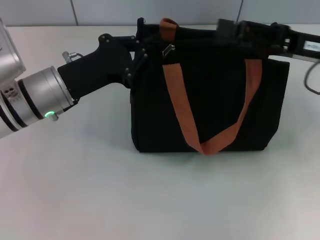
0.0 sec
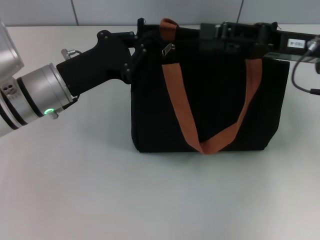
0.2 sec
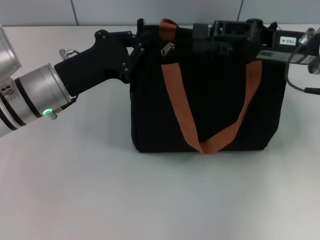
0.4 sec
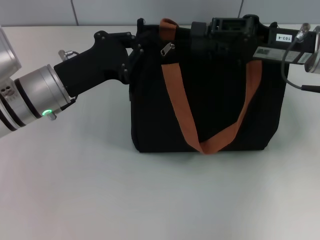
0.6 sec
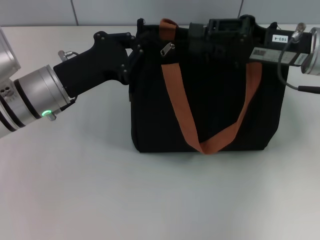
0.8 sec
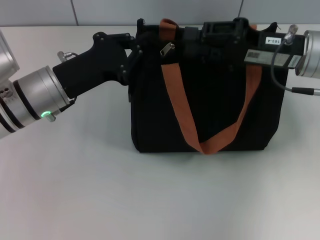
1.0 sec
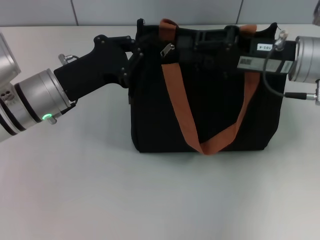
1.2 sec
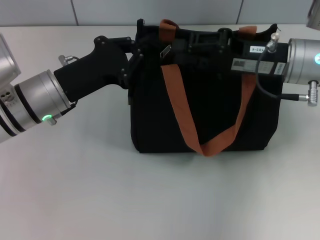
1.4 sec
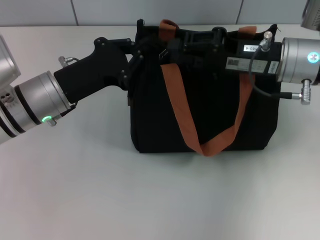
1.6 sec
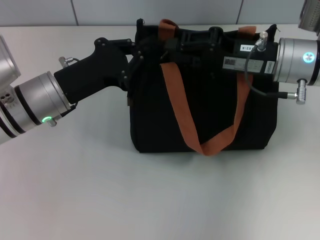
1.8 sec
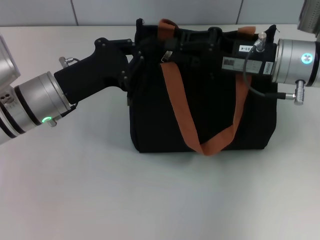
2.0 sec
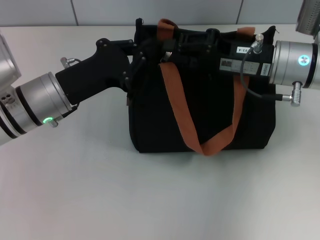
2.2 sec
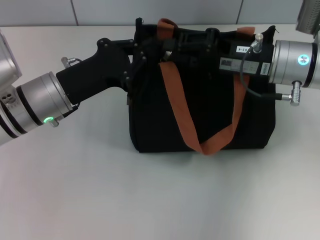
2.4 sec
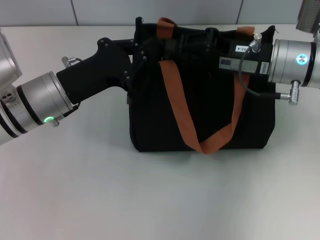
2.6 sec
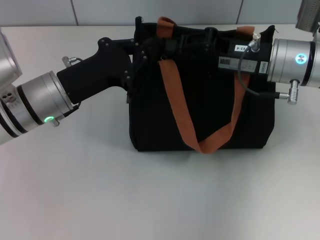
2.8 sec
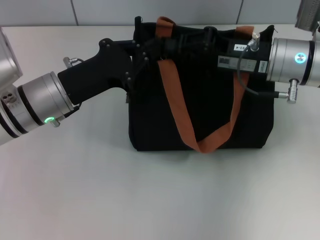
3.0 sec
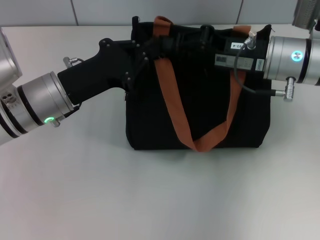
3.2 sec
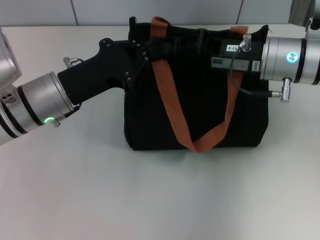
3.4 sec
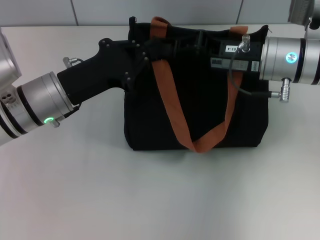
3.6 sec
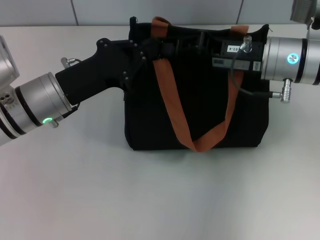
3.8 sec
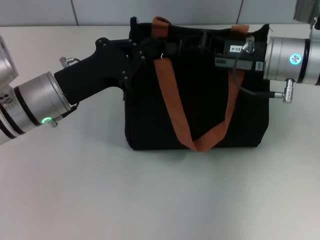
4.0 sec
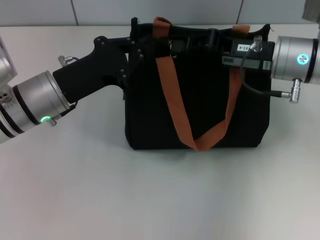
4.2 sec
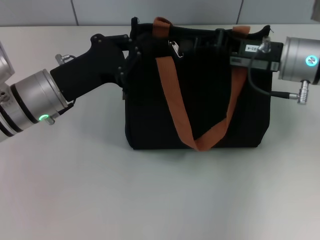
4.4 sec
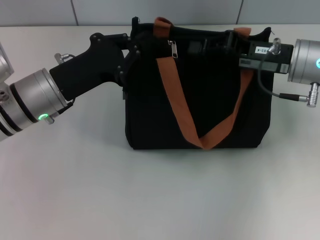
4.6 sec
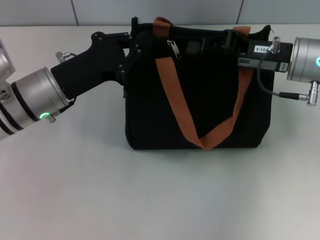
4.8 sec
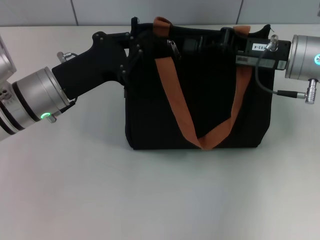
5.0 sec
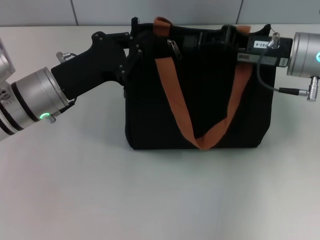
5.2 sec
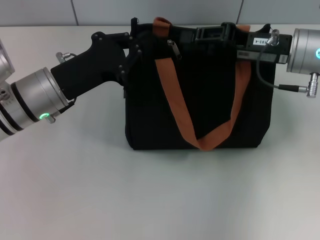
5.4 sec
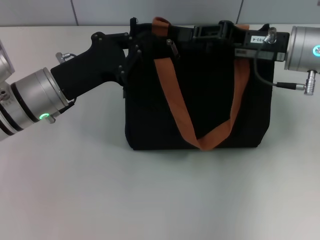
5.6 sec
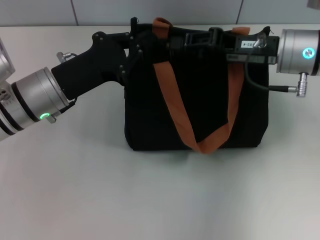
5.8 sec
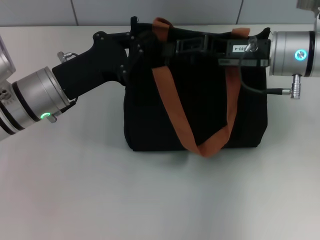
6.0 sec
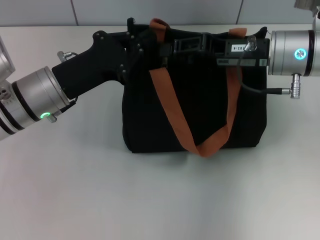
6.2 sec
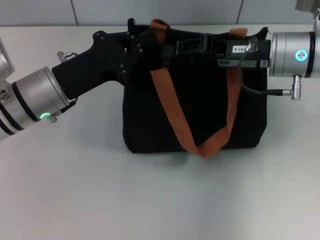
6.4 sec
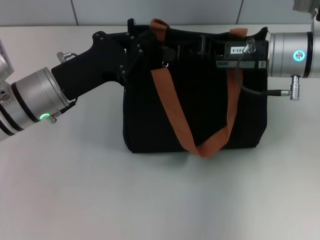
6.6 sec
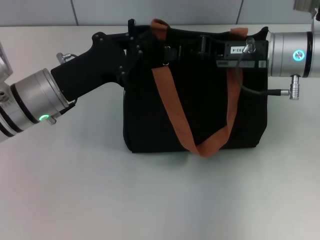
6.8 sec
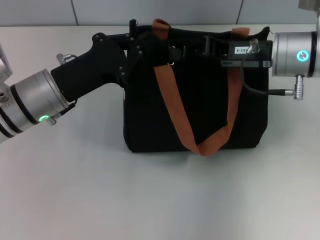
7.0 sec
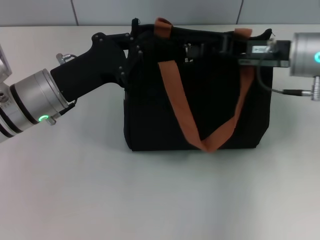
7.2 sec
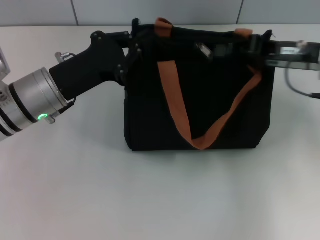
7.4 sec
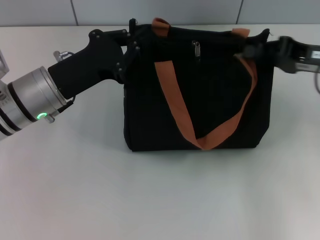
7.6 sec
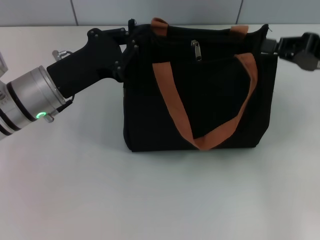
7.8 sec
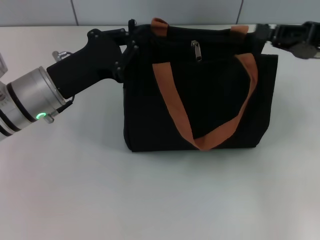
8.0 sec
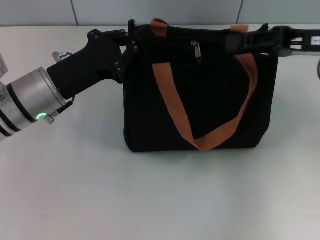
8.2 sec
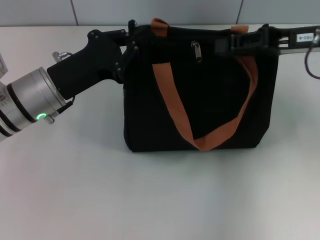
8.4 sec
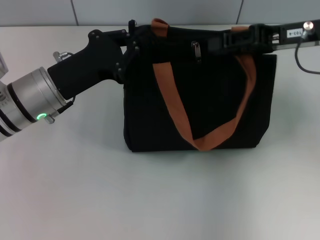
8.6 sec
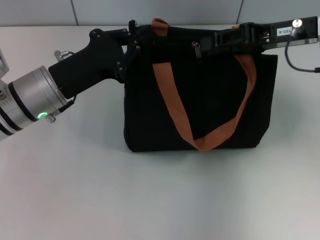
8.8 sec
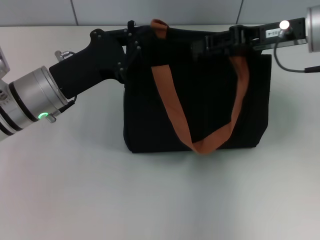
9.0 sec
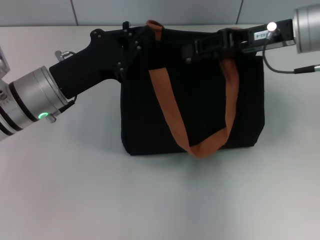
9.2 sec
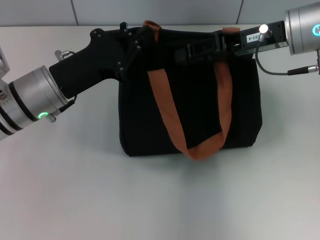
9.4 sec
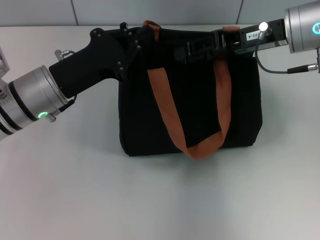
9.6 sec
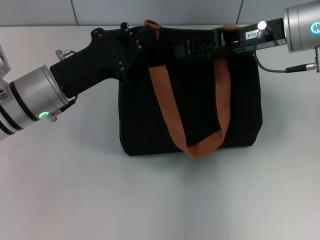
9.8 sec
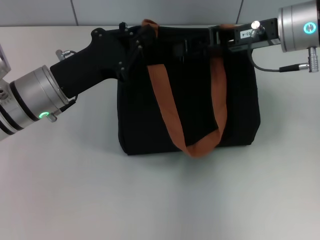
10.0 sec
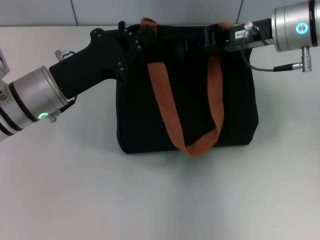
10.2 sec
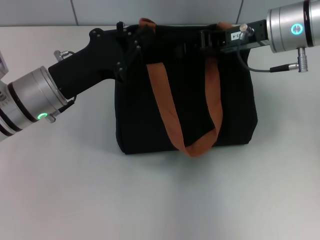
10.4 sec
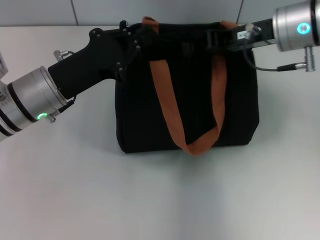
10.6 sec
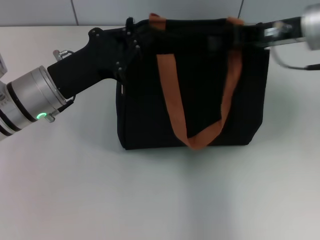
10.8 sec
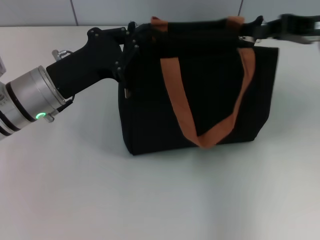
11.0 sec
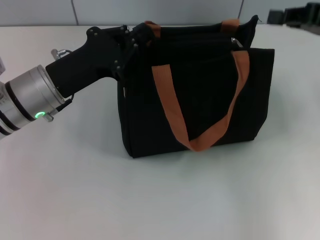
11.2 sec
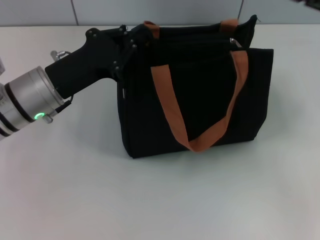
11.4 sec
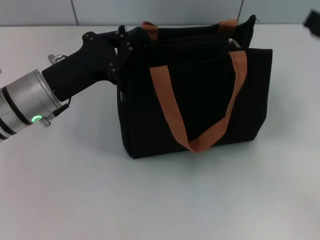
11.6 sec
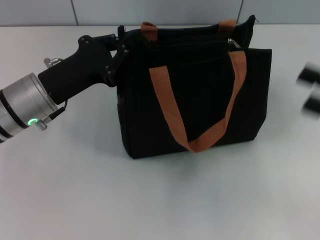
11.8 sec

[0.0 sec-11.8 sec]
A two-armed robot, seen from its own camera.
Step, 0.0 sec to 11.0 sec: Pull up the zipper with your right hand.
0.0 sec to 1.4 sec: The right gripper ends up some 5 cm from where it was, and closes its fingers.
1.4 sec to 4.4 sec: The grippers make only small movements.
4.4 sec to 6.0 sec: The right gripper opens up.
6.0 sec to 7.4 sec: The right gripper shifts some 5 cm to the right, and closes.
7.4 sec to 8.8 sec: The right gripper changes place by about 5 cm, and opens up.
8.8 sec to 10.4 sec: The right gripper moves to the left, approximately 5 cm, and closes up.
10.4 sec to 11.8 sec: The right gripper moves backward and to the right, approximately 20 cm.

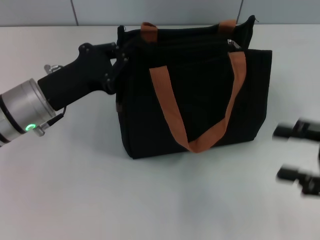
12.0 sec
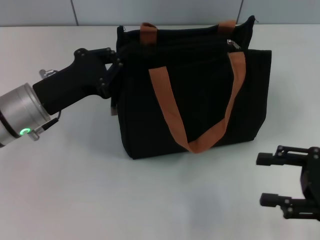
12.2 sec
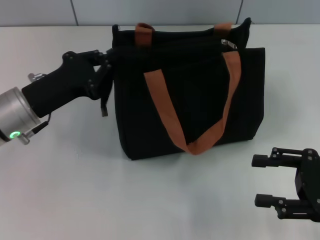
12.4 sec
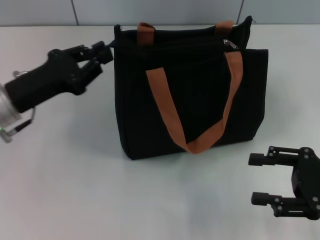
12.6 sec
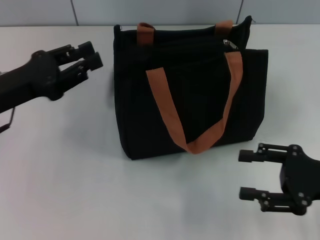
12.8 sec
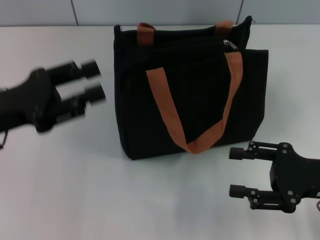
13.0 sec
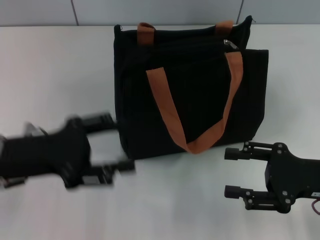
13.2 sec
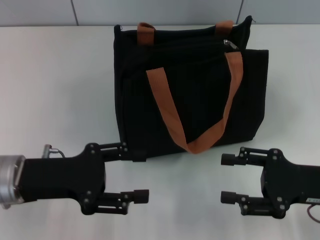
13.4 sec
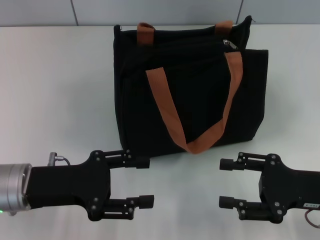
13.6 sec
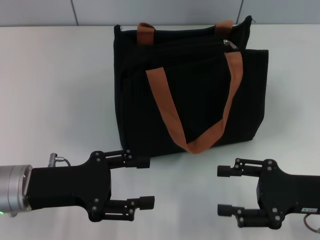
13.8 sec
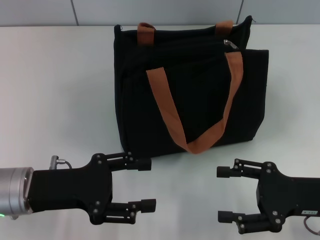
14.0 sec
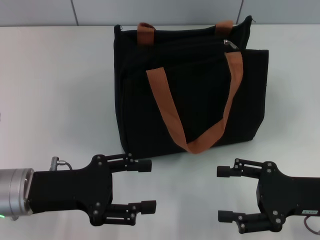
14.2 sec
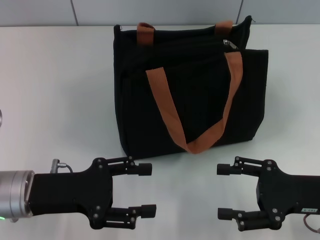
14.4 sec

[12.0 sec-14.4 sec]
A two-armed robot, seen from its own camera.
12.0 sec to 13.2 sec: The left gripper travels backward by approximately 5 cm, and opens up, while the right gripper shifts by some 5 cm.
13.2 sec to 14.4 sec: The left gripper opens.

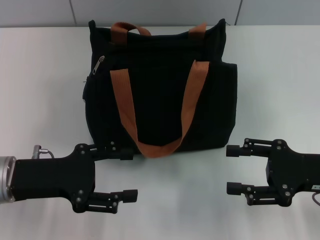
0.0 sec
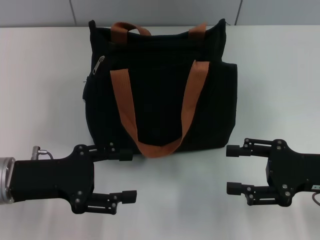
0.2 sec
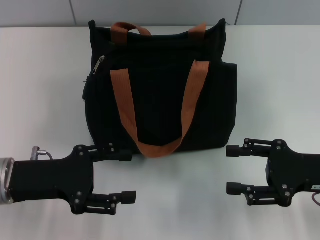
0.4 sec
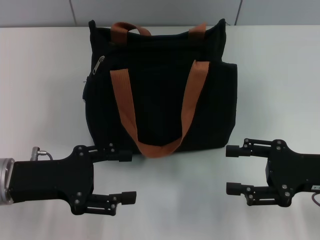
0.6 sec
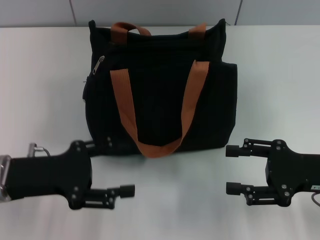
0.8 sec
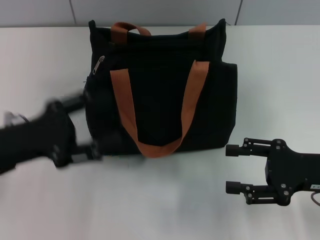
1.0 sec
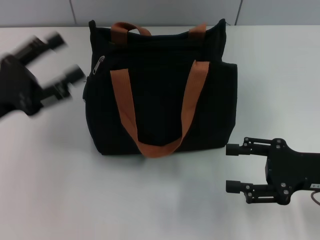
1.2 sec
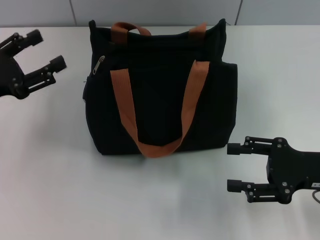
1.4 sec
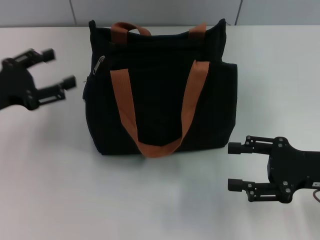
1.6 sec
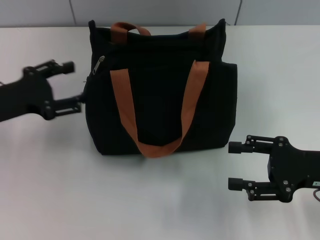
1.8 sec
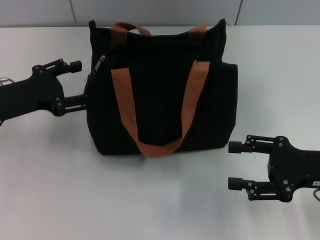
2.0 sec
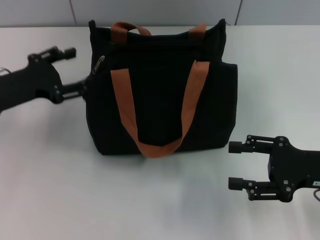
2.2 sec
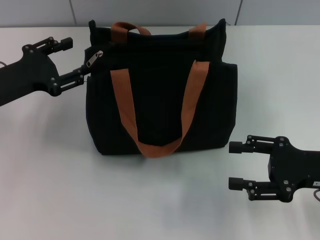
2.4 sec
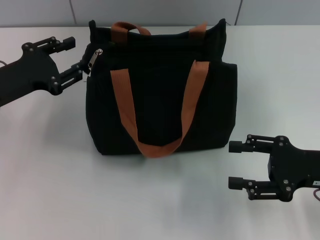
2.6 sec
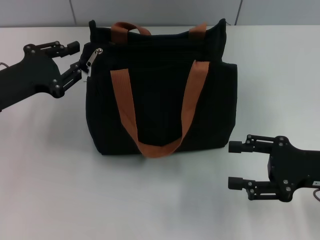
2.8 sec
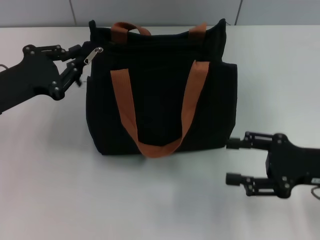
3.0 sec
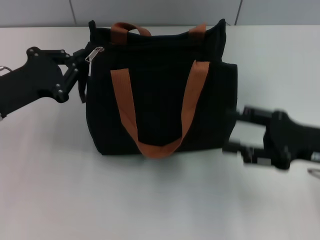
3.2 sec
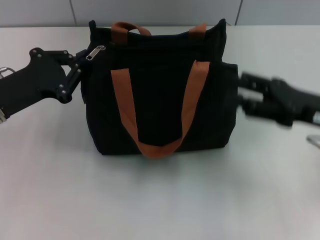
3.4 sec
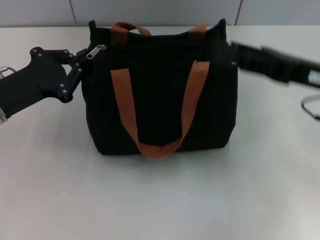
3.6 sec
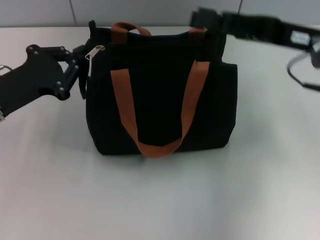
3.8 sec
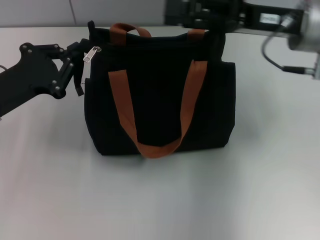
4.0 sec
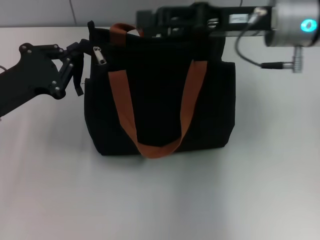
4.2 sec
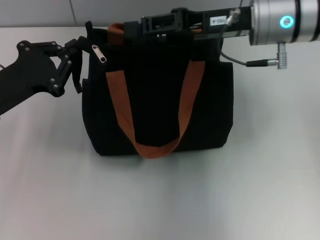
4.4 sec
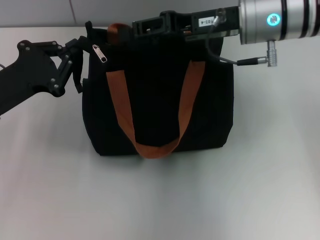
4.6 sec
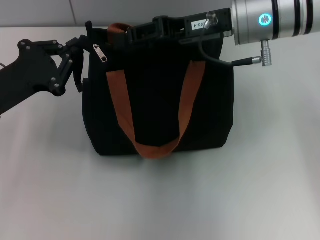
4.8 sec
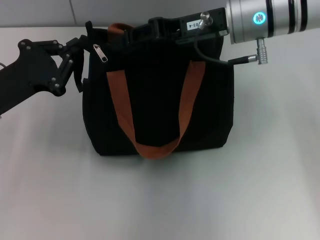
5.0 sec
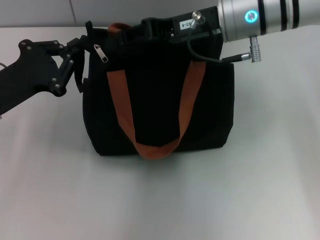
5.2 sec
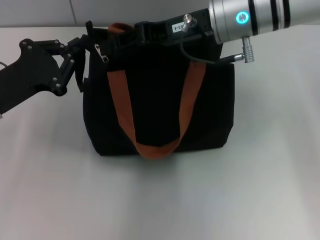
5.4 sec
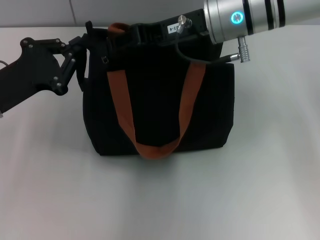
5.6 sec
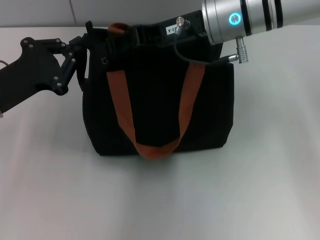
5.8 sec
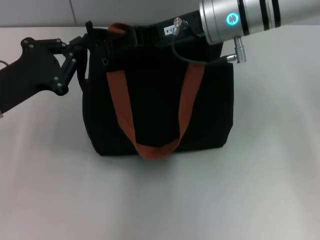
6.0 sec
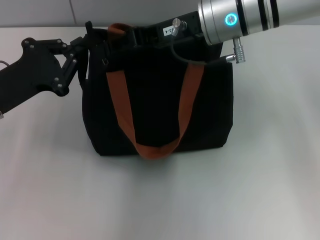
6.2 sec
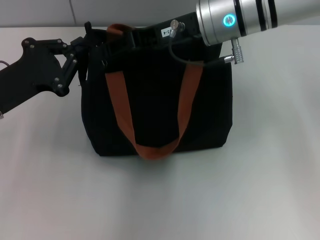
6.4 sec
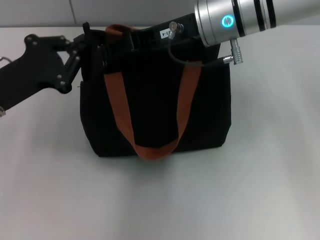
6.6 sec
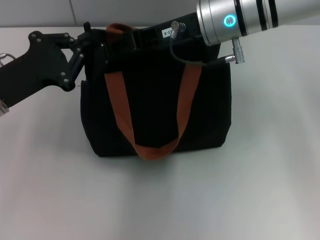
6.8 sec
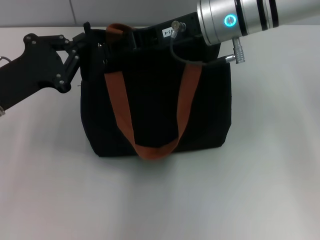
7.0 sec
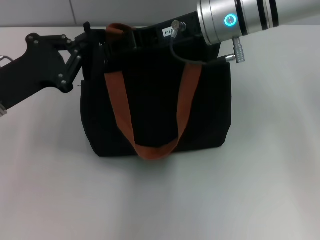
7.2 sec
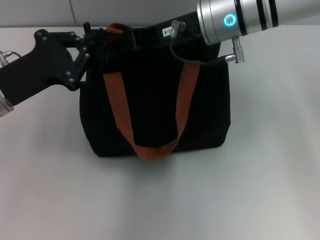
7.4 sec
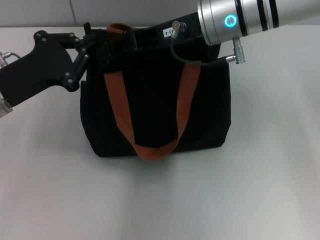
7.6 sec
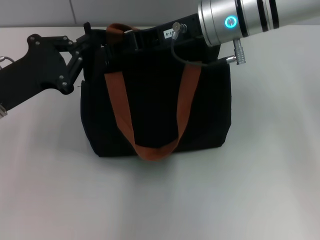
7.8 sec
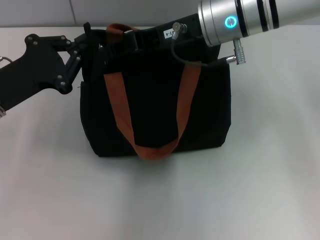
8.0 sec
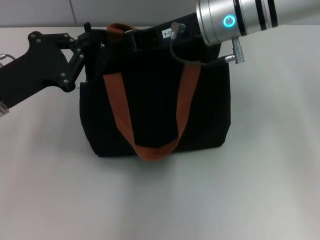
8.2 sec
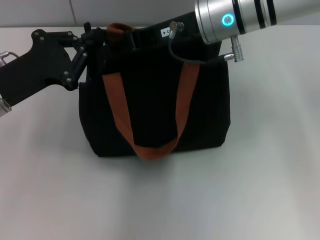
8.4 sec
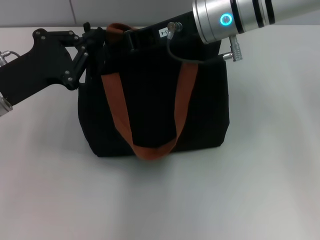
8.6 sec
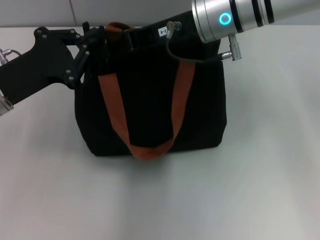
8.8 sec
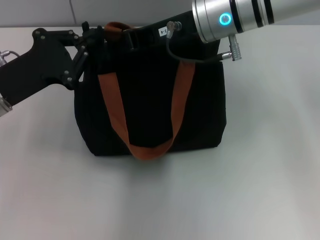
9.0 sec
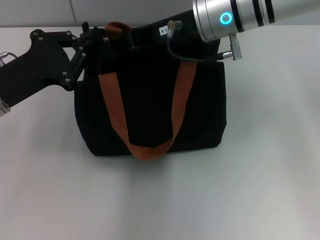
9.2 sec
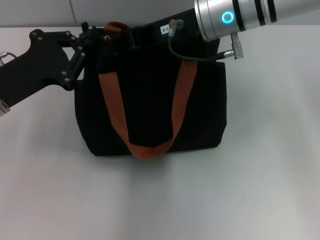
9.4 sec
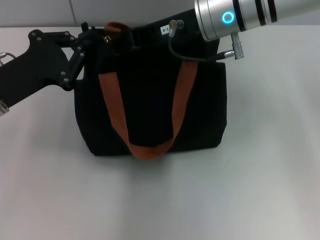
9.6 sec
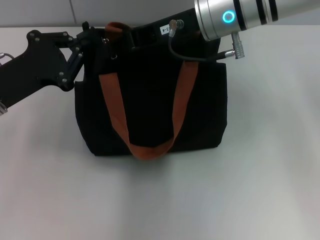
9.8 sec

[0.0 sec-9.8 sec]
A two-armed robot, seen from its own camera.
0.0 sec to 1.4 sec: The left gripper shifts roughly 5 cm to the left.
1.4 sec to 2.8 sec: The left gripper closes up.
2.8 sec to 4.2 sec: The left gripper closes up. The right gripper heads forward, upward and to the left, covering roughly 20 cm.
4.2 sec to 5.6 sec: The right gripper moves to the left, approximately 5 cm, and closes.
5.6 sec to 7.0 sec: Both grippers stay put.
7.0 sec to 8.4 sec: The grippers stay close to where they were, moving slightly.
8.4 sec to 9.8 sec: Both grippers stay put.
